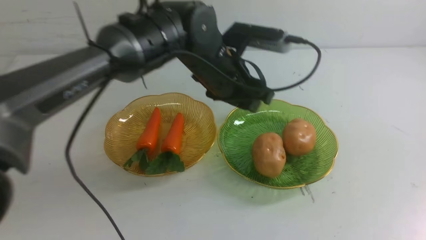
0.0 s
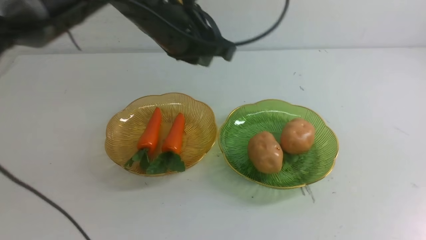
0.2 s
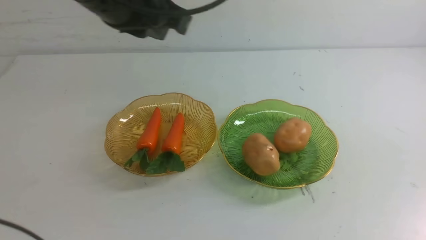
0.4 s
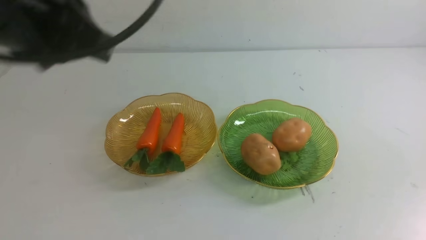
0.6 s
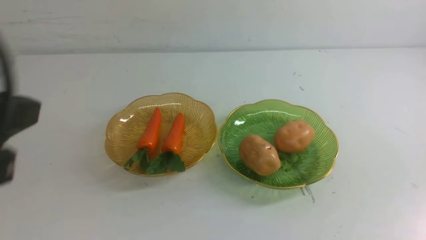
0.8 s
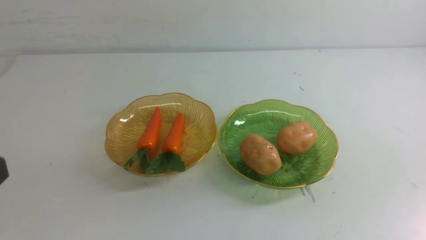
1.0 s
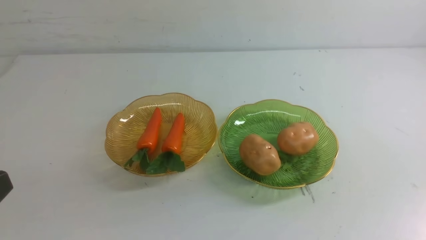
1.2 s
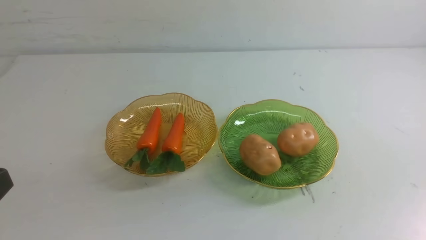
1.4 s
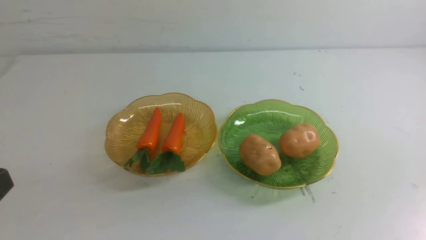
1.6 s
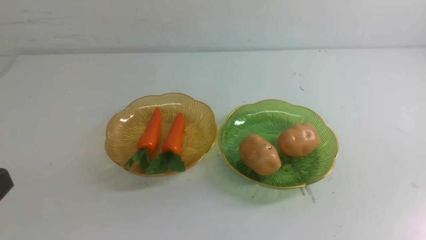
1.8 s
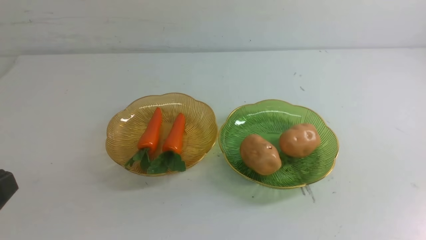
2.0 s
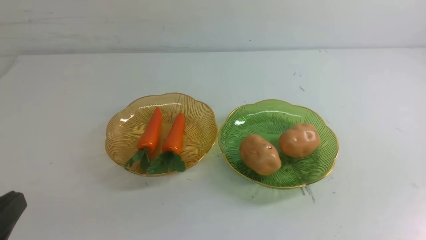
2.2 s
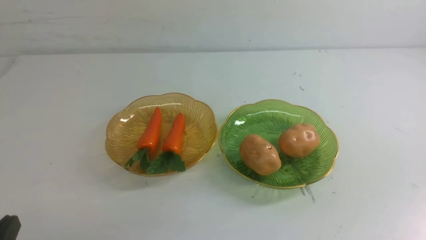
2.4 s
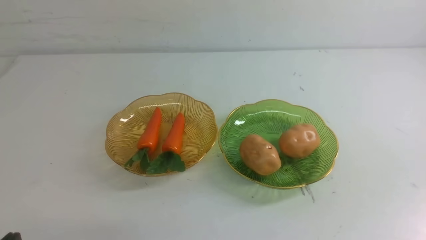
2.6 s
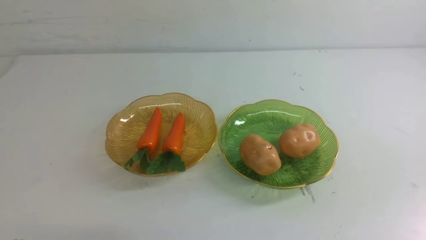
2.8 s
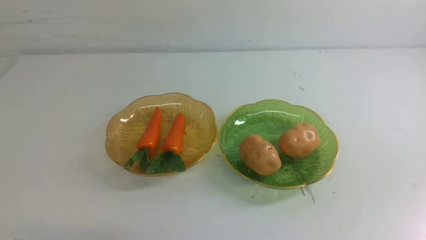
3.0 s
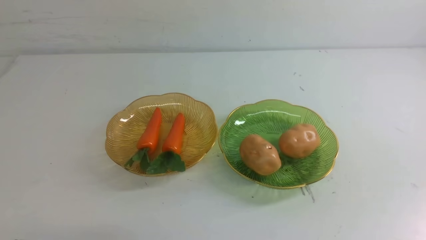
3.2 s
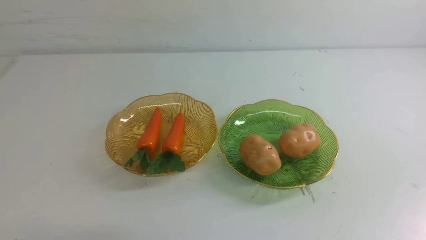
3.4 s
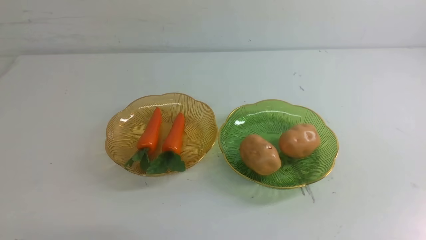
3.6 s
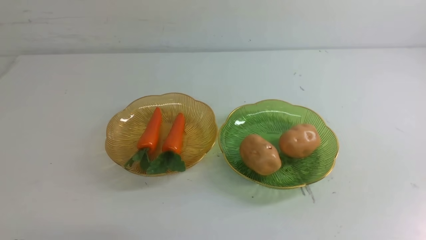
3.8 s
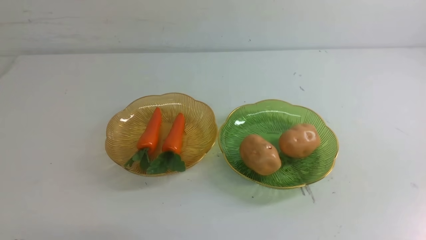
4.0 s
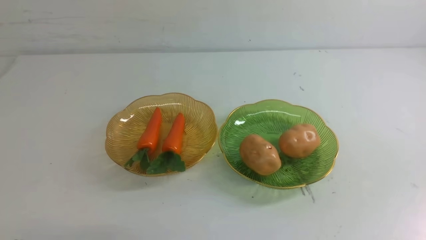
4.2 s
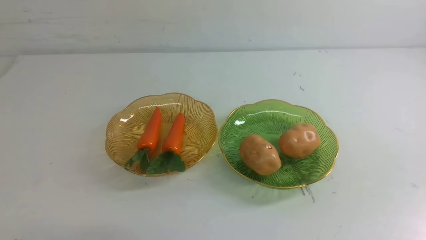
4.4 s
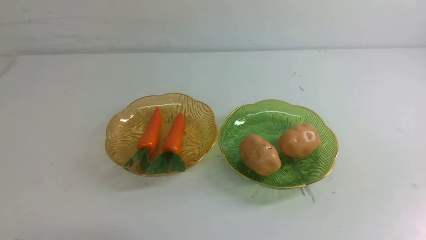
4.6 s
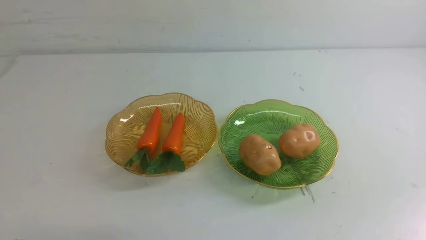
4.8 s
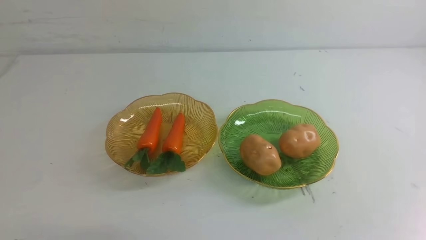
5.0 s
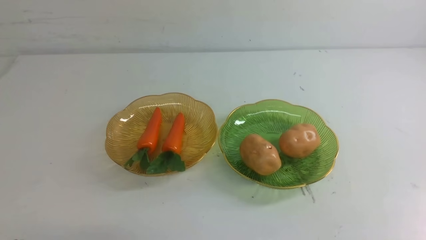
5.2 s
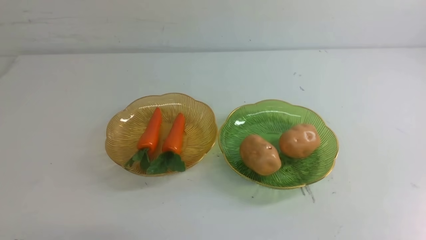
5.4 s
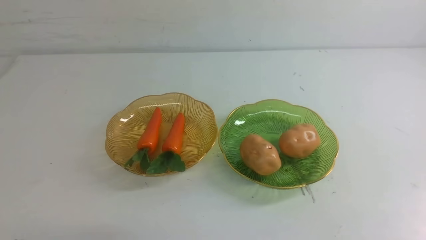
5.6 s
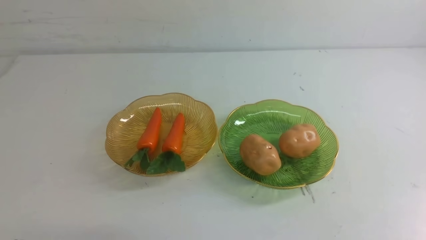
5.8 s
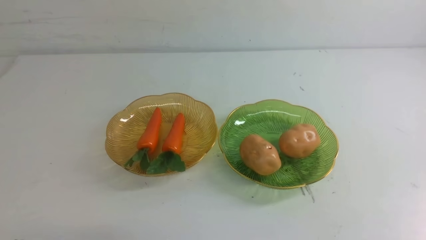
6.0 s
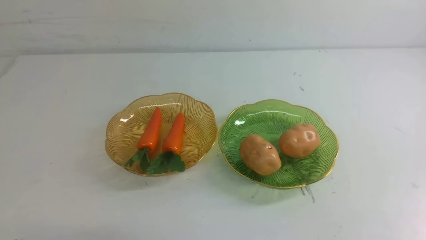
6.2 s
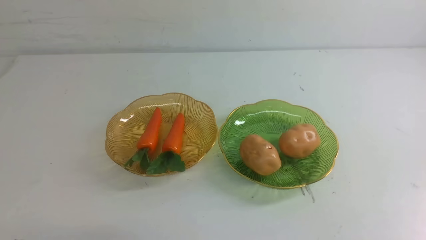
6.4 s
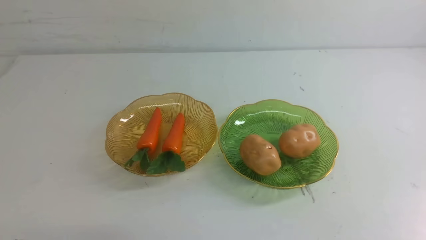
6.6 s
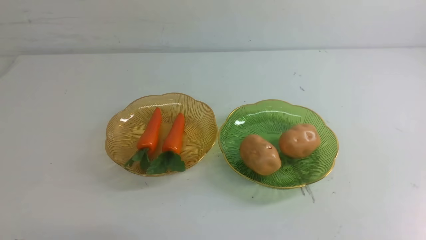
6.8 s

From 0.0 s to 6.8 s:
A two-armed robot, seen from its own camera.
From 0.0 s to 1.4 s: The left gripper is displaced backward and to the left by approximately 35 cm, while the right gripper travels downward by about 5 cm.
From 5.4 s to 6.8 s: Neither gripper changes place.

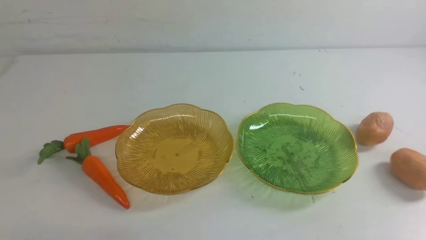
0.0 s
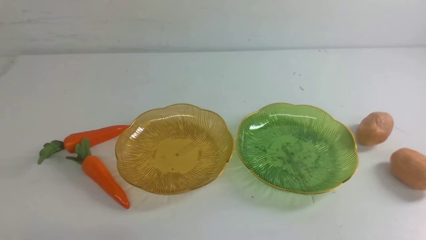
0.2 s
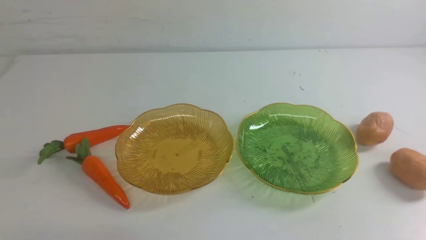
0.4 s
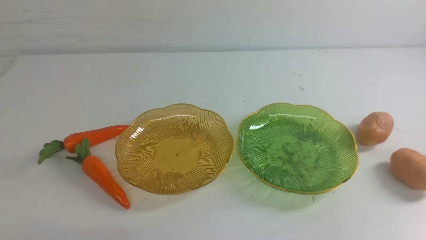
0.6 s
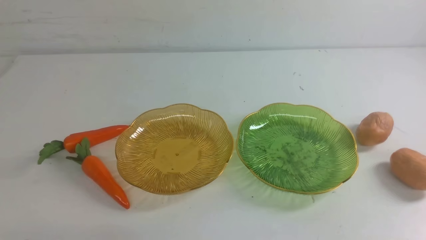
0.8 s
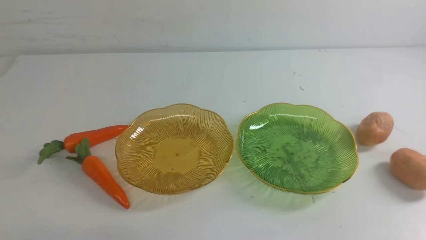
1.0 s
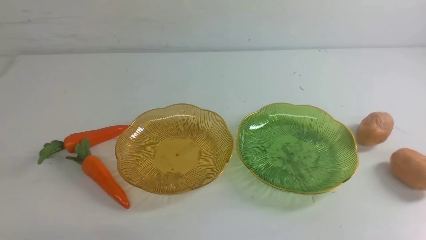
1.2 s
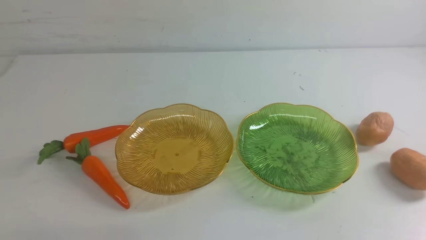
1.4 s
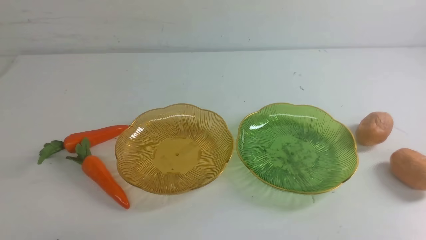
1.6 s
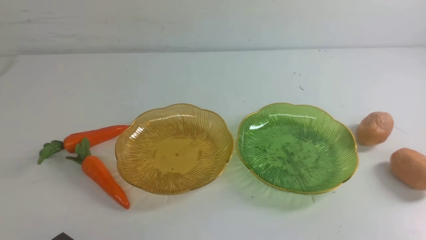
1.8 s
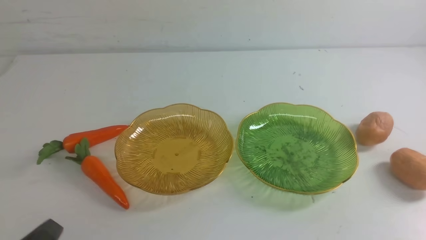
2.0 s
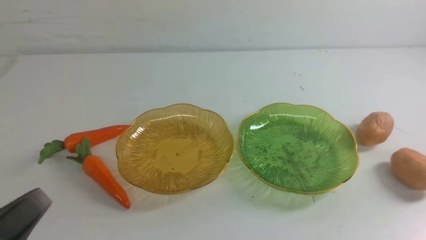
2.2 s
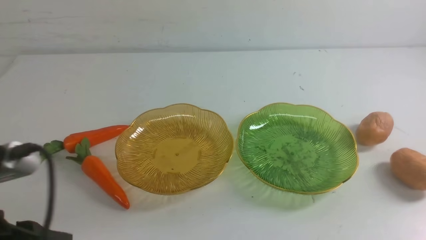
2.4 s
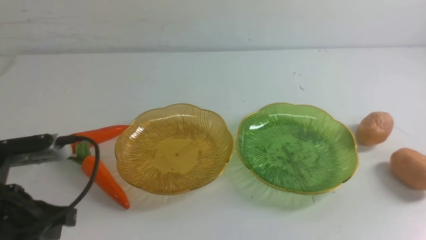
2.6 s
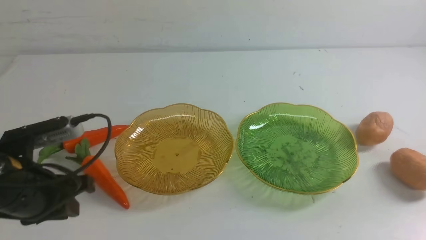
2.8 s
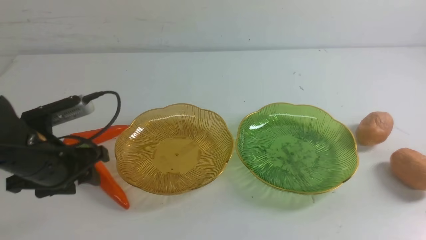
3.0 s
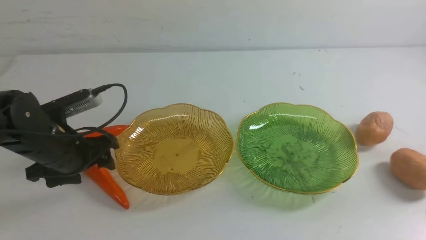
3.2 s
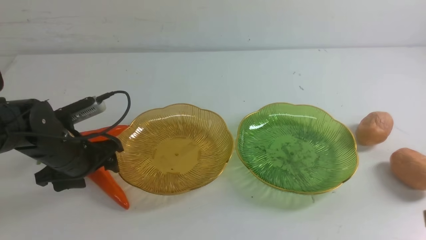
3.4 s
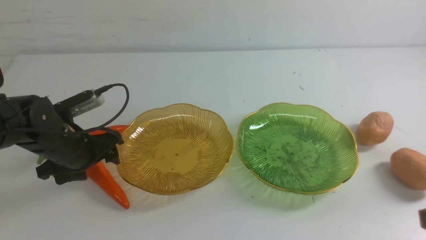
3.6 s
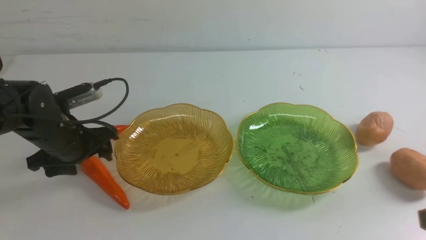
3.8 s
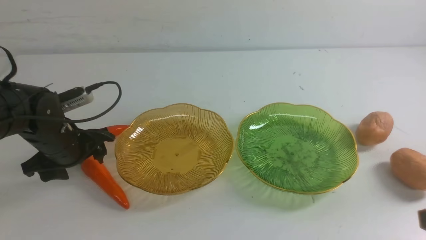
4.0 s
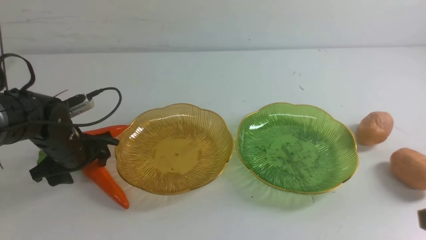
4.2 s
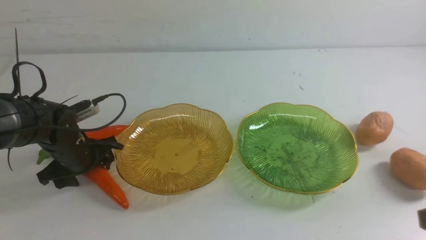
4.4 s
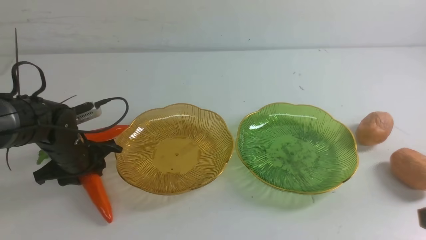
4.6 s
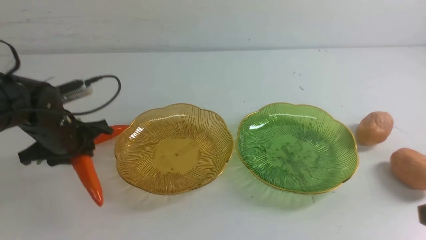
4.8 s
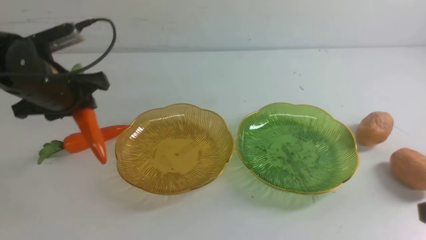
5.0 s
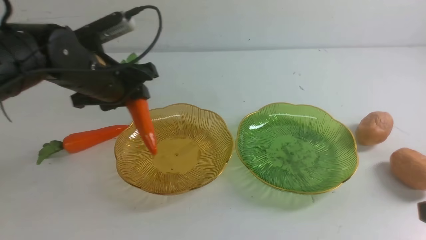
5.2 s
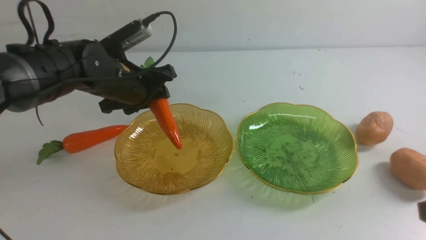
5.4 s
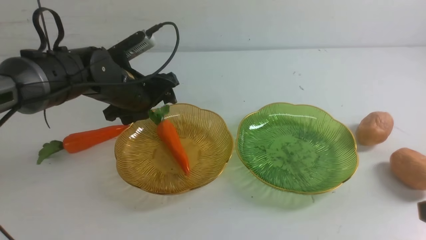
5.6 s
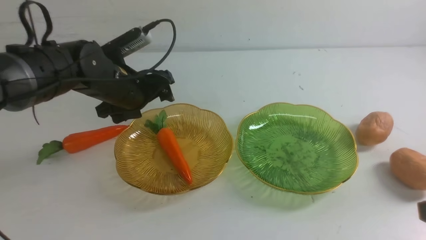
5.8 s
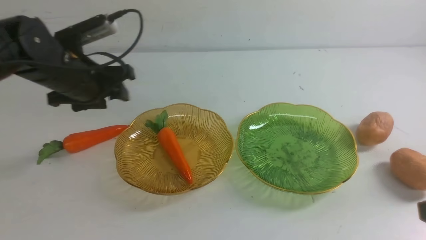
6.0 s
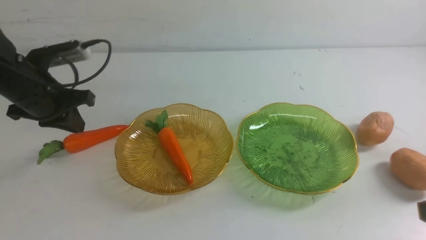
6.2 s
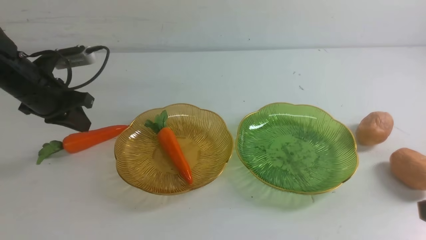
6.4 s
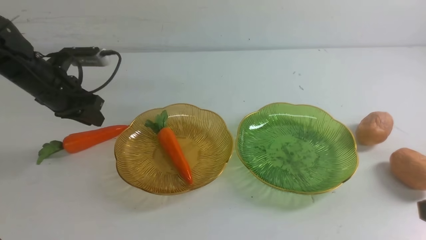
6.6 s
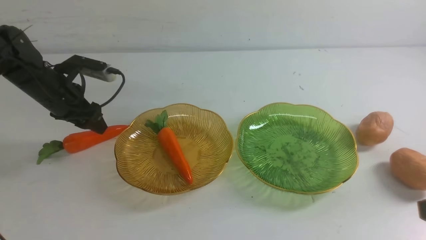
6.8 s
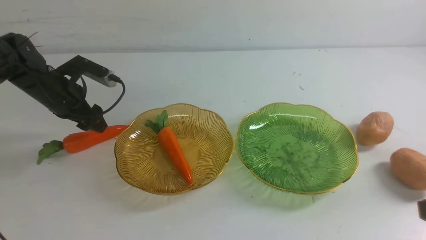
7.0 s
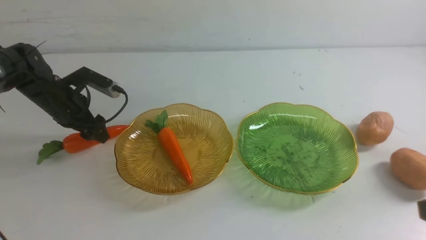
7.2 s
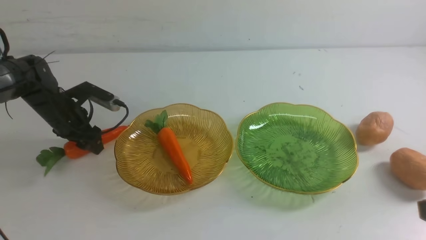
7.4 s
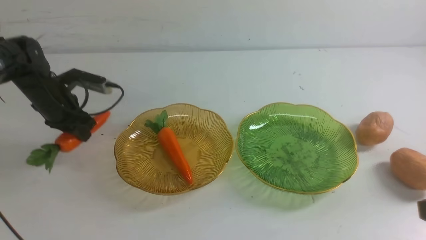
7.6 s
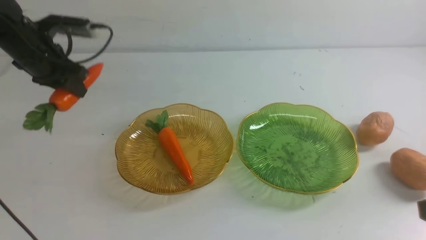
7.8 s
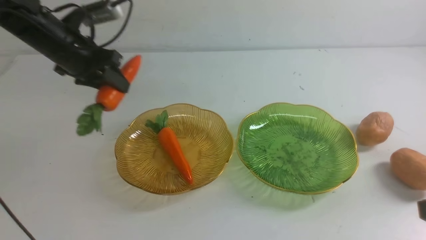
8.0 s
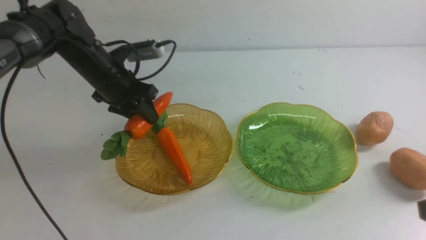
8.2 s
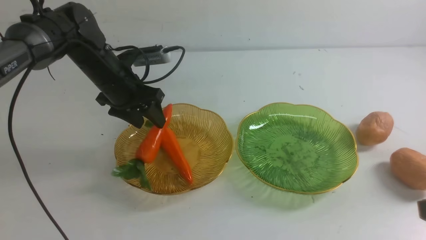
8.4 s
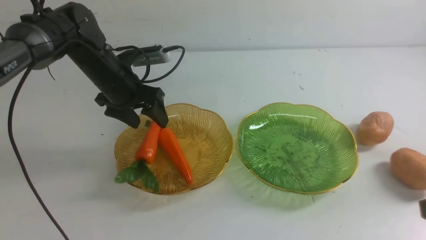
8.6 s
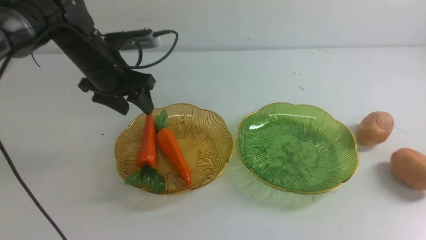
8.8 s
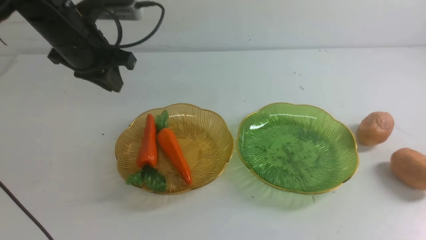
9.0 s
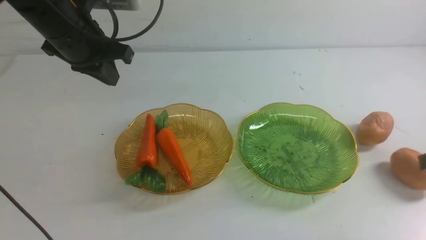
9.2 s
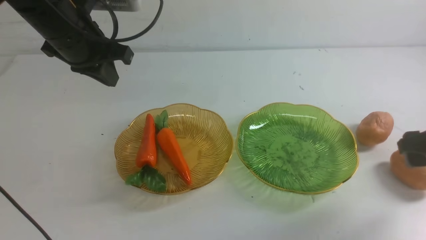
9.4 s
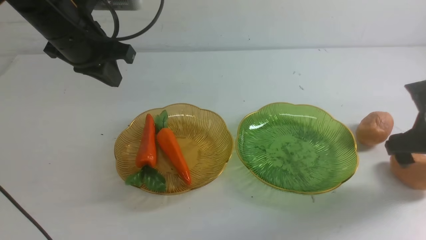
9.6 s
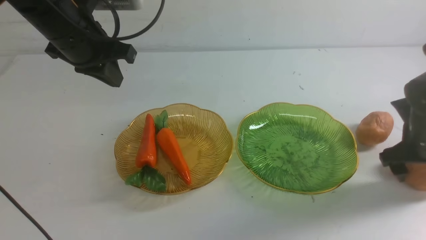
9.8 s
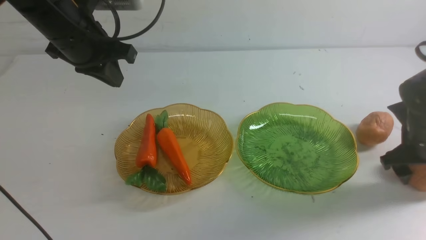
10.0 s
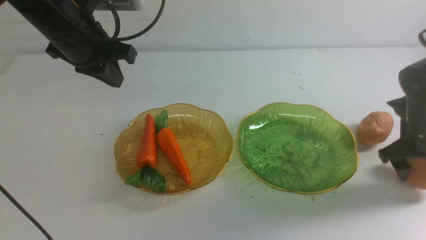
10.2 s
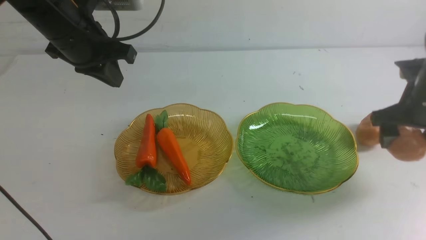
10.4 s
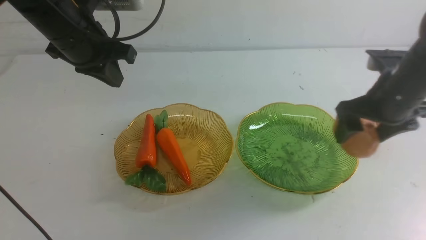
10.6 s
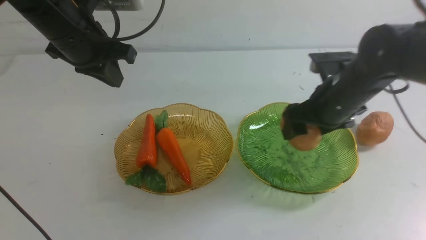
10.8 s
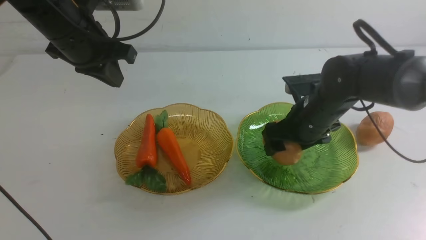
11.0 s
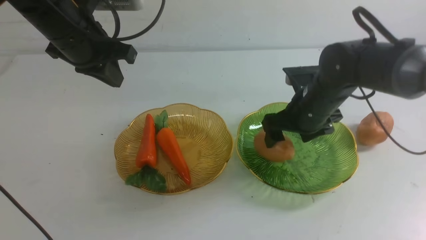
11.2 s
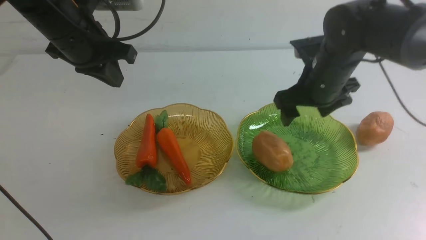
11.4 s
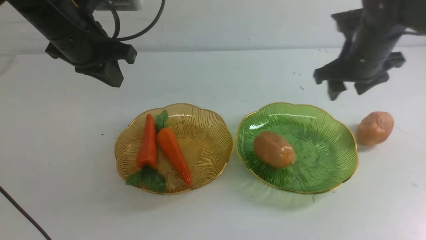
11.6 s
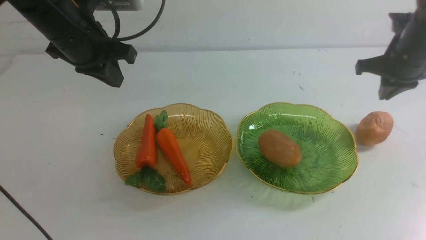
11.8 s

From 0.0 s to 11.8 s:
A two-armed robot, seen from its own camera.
Step, from 0.0 s to 8.6 s: use the left arm to grab a carrot and put it into the left plate.
Step, from 8.8 s to 11.0 s: Grab a potato with your right arm and put it on the right plate.
From 1.4 s to 3.0 s: The left gripper moves forward, about 20 cm, and opens its fingers.
From 3.0 s to 4.4 s: The left gripper goes roughly 10 cm forward and downward.
From 4.4 s to 6.0 s: The left gripper shifts roughly 10 cm upward, and closes.
From 6.0 s to 7.4 s: The left gripper heads downward, forward and to the left, covering approximately 15 cm, and opens, then closes again.
From 7.4 s to 8.8 s: The left gripper travels to the right and upward by some 15 cm.
From 8.8 s to 10.4 s: The right gripper is displaced forward by roughly 20 cm, and opens up; the left gripper goes roughly 5 cm upward, and closes its fingers.
From 10.4 s to 11.8 s: The right gripper heads forward, covering some 5 cm, goes to the left and returns, approximately 15 cm each way, and closes its fingers.
